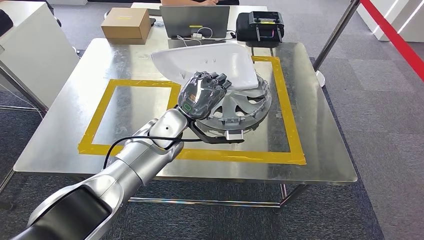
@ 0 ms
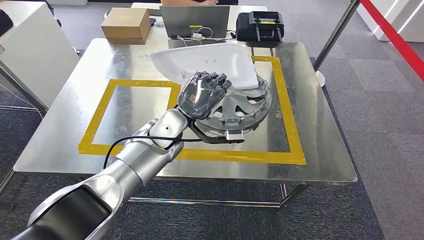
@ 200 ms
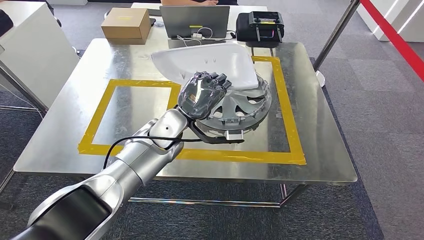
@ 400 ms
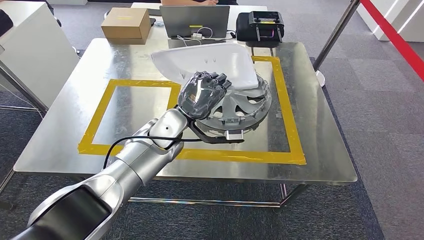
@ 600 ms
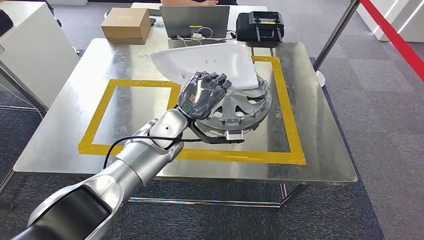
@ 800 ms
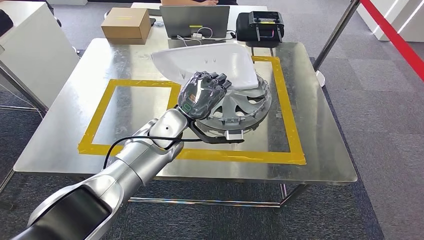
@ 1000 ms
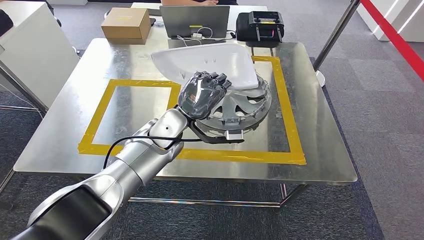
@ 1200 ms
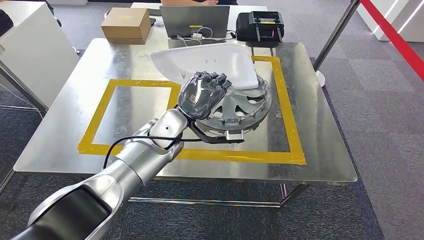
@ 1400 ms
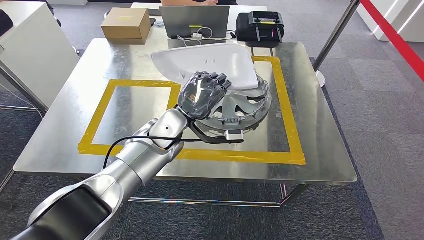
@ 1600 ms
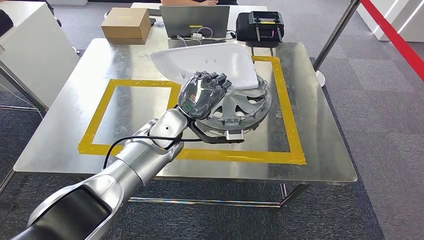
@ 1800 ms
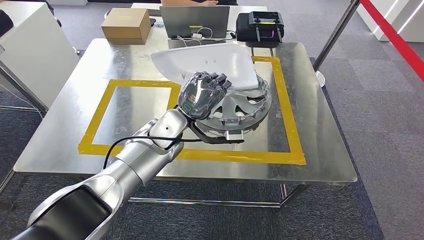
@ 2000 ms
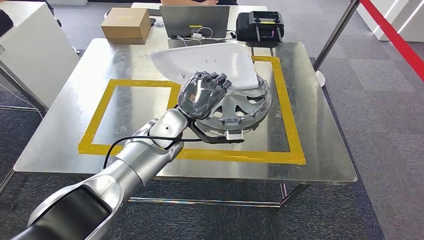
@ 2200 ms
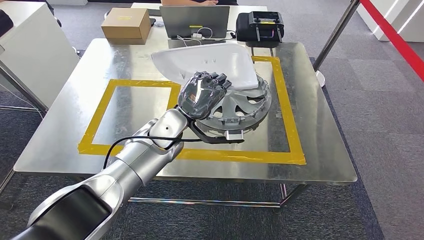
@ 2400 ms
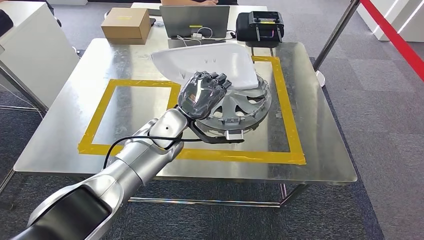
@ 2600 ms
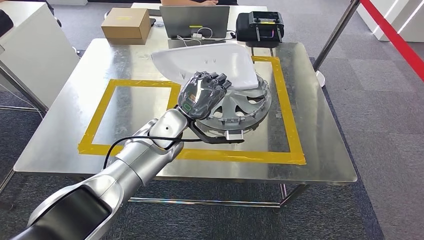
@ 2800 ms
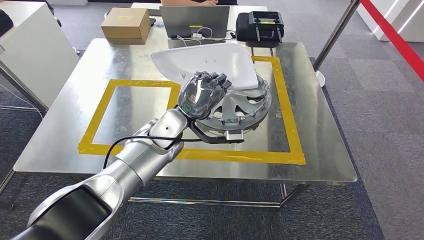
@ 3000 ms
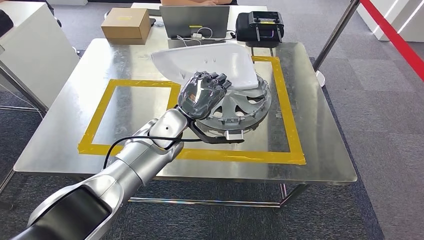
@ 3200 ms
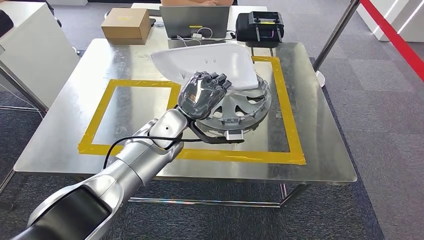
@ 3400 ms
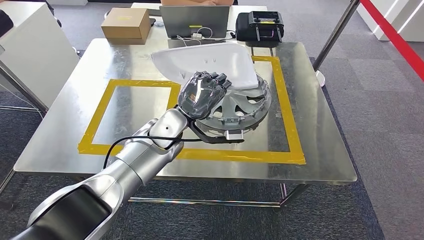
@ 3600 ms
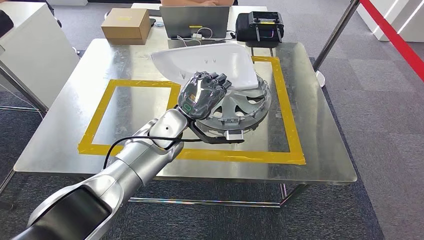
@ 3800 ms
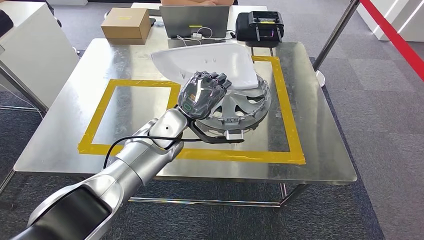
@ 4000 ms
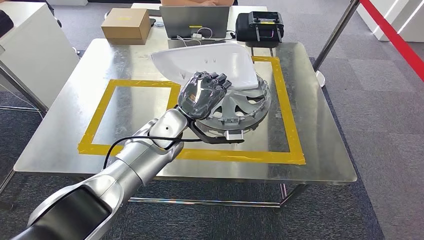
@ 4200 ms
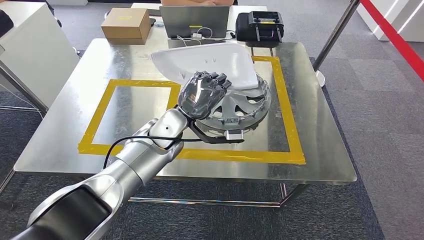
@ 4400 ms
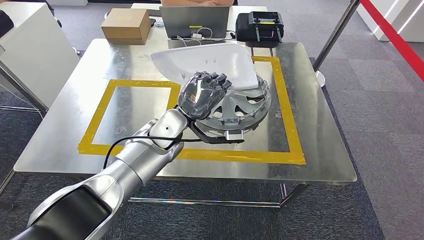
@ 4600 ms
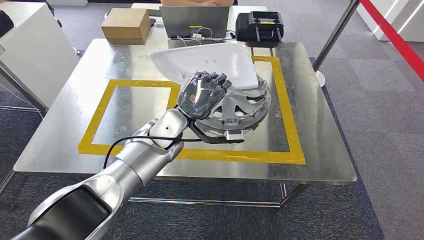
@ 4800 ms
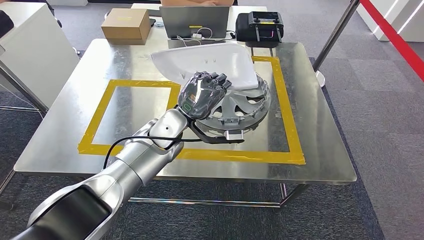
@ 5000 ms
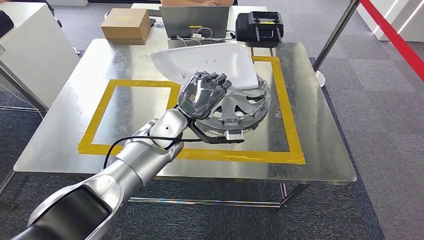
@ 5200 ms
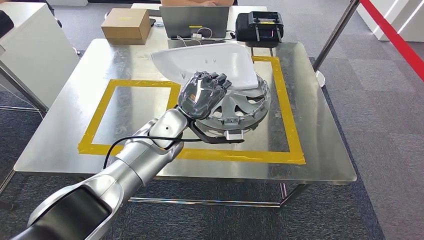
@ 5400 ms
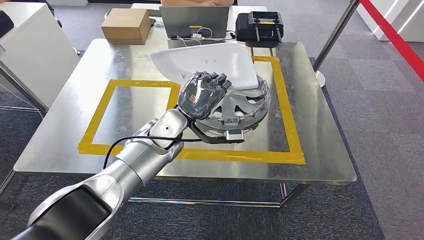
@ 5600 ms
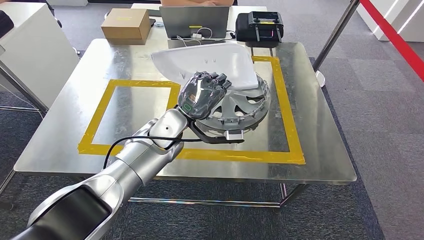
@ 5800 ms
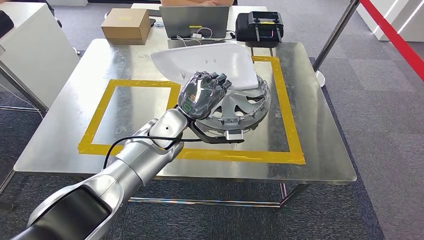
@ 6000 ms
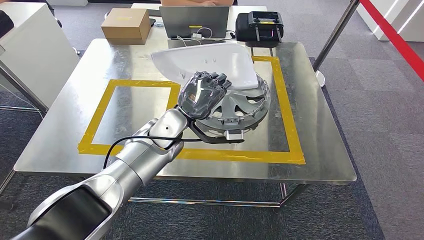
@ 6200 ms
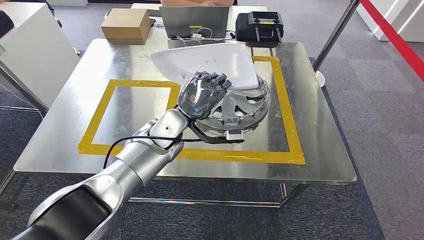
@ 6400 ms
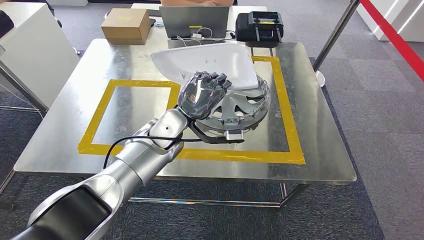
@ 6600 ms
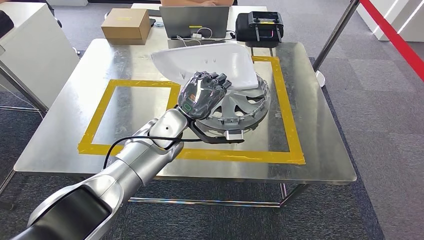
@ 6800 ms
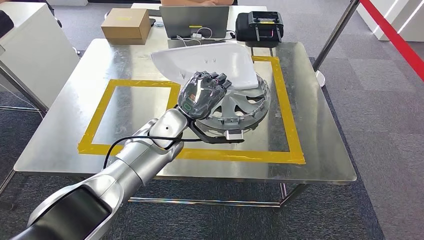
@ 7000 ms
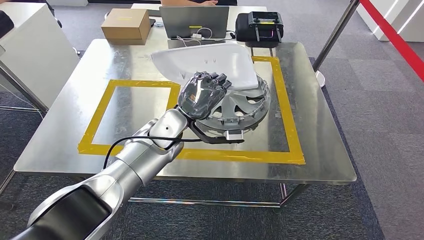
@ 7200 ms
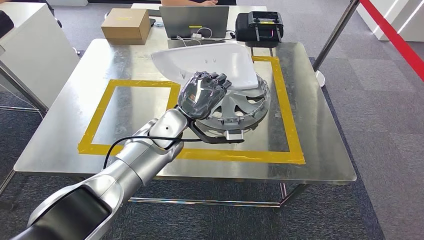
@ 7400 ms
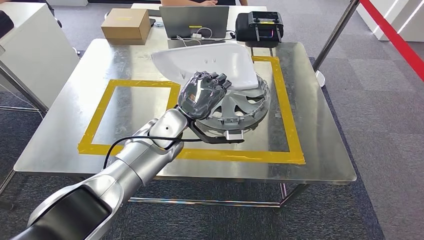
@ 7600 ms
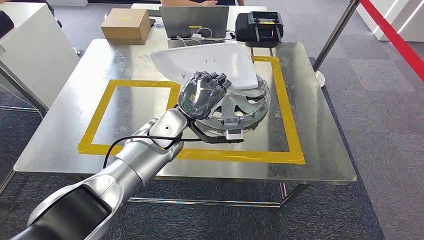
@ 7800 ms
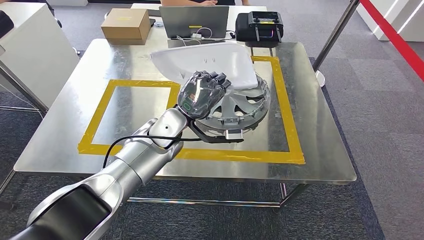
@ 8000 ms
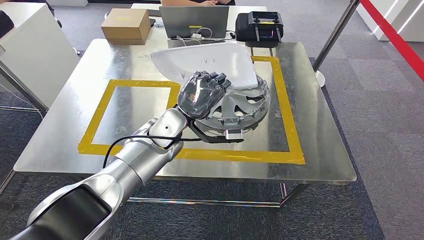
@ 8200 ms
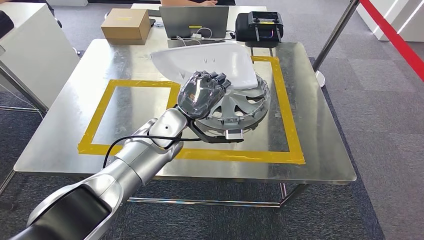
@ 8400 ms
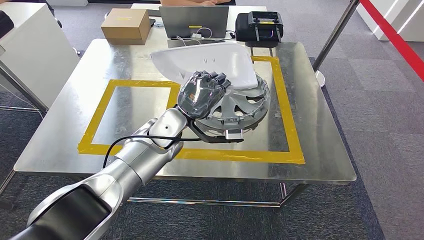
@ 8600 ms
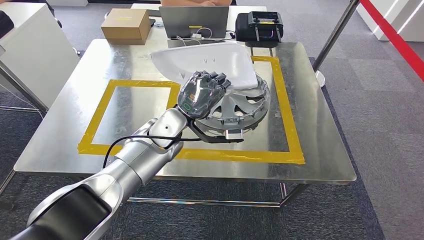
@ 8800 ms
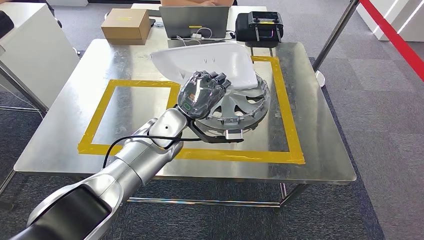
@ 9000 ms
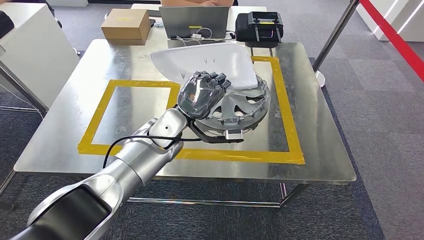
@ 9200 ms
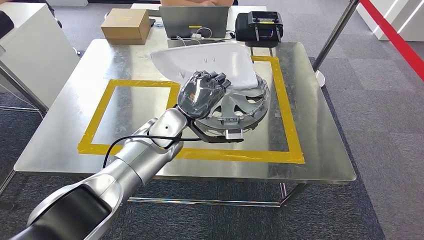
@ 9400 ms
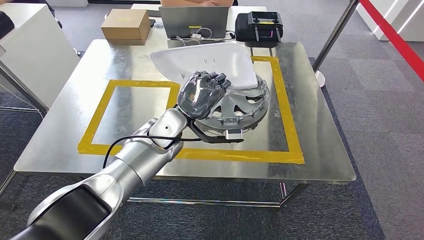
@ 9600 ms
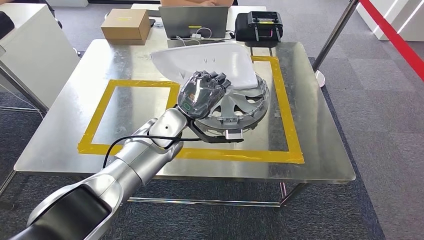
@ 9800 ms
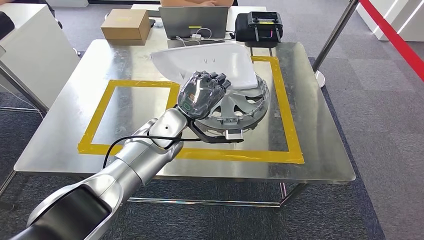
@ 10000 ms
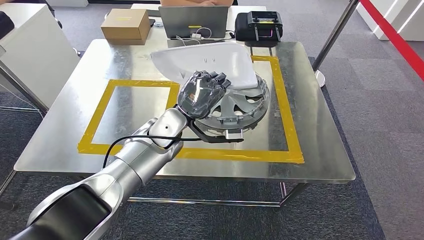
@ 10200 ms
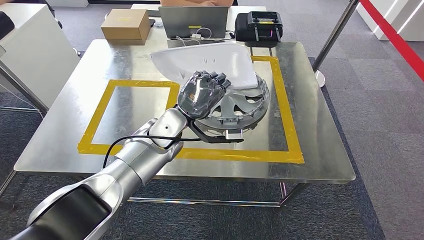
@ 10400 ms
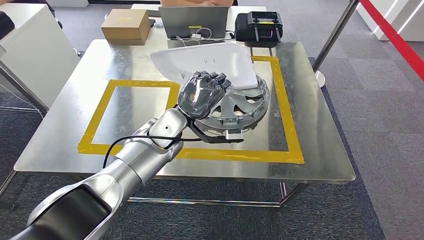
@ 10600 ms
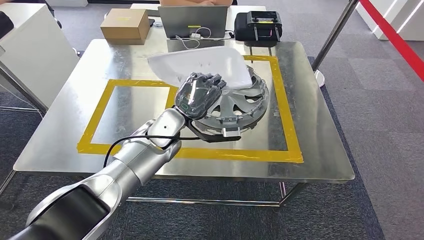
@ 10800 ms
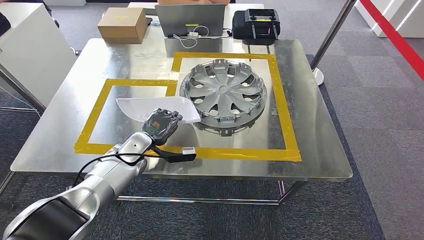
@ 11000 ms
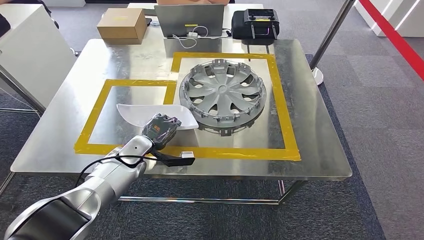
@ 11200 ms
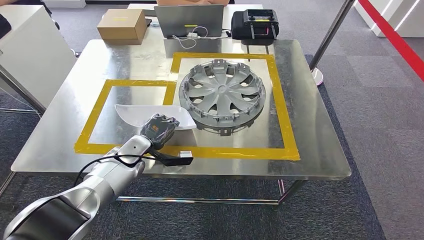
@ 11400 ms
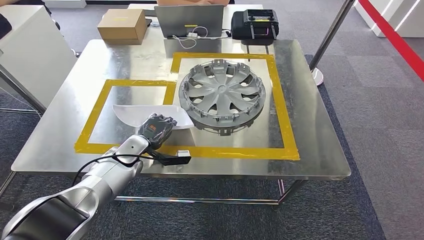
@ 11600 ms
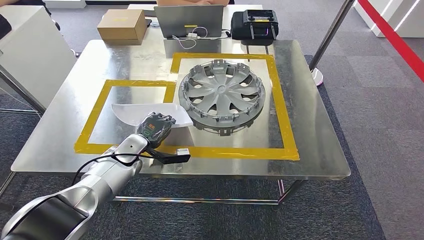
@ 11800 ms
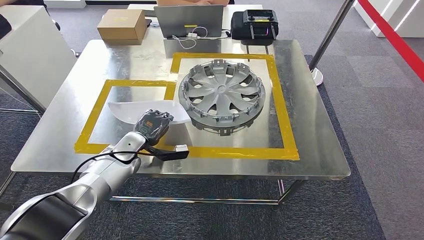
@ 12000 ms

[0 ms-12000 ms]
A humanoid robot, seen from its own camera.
0 ms to 10400 ms: Neither hand changes place.

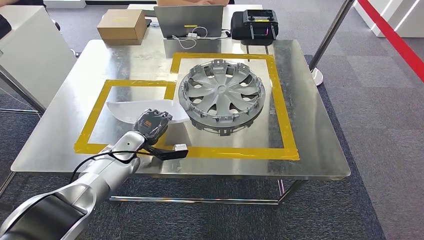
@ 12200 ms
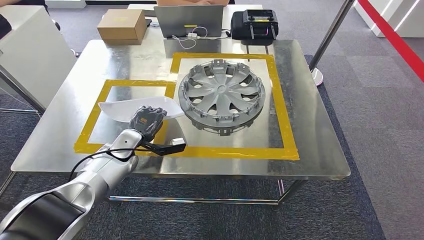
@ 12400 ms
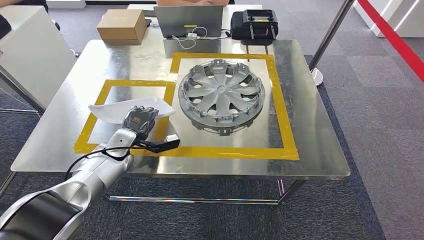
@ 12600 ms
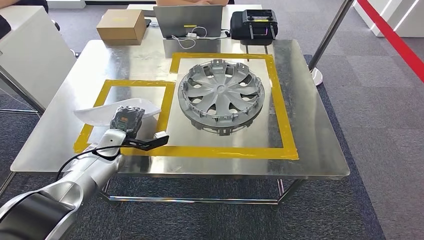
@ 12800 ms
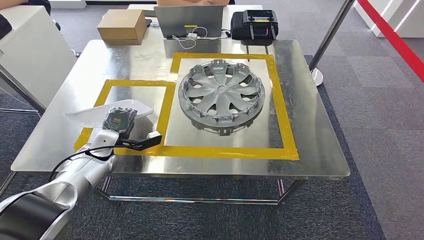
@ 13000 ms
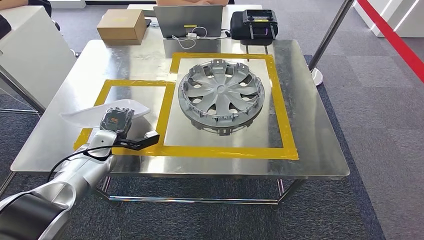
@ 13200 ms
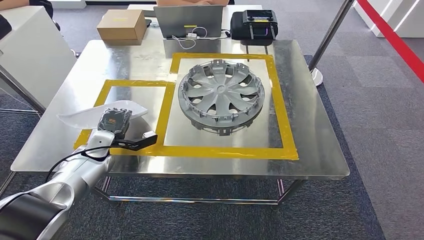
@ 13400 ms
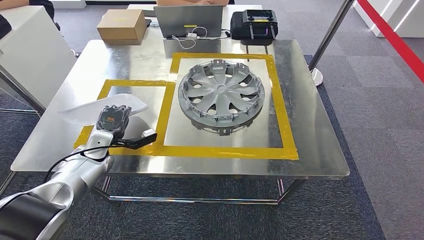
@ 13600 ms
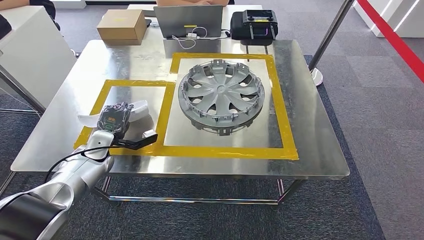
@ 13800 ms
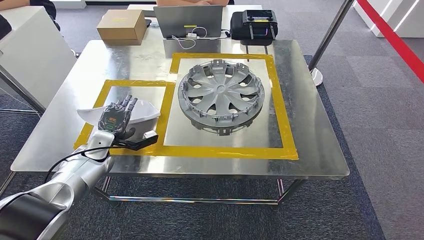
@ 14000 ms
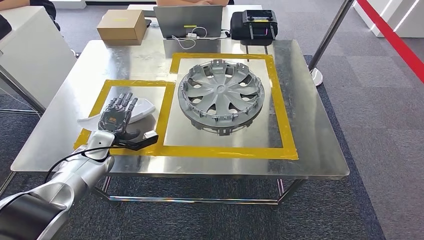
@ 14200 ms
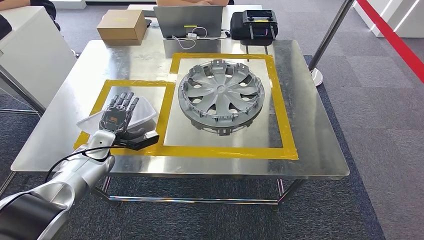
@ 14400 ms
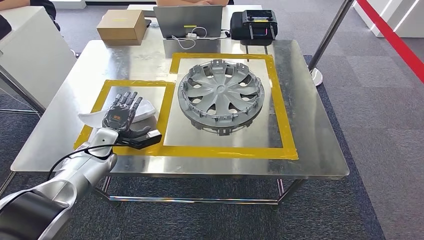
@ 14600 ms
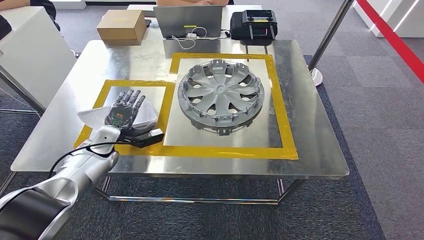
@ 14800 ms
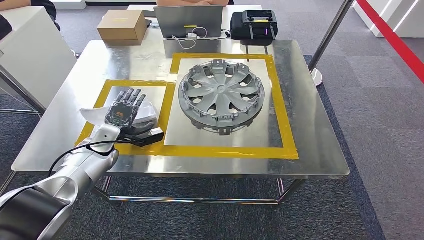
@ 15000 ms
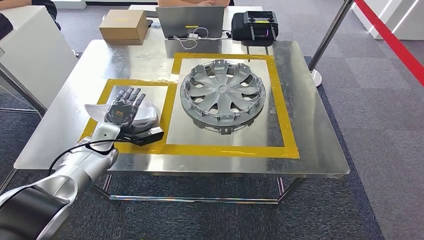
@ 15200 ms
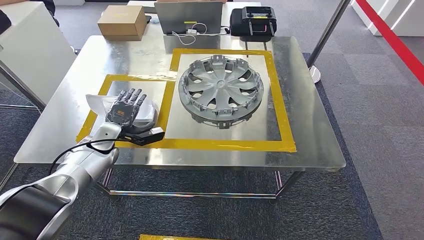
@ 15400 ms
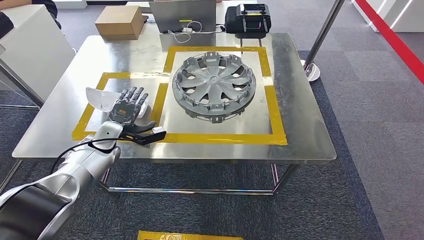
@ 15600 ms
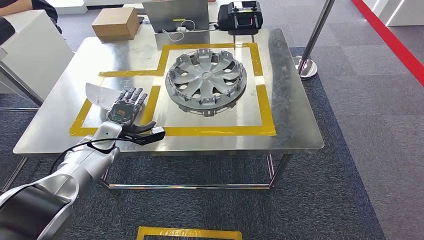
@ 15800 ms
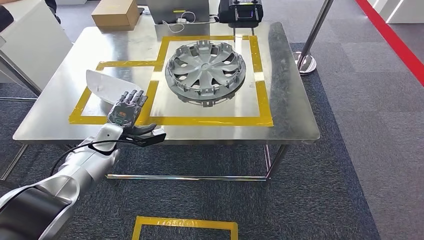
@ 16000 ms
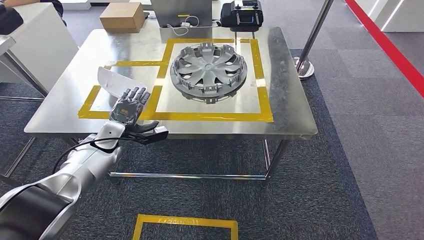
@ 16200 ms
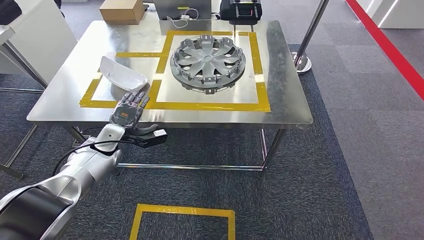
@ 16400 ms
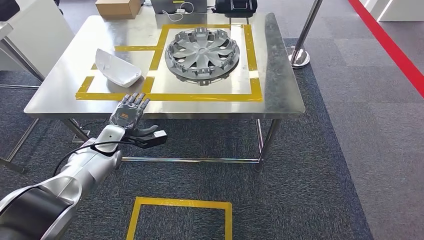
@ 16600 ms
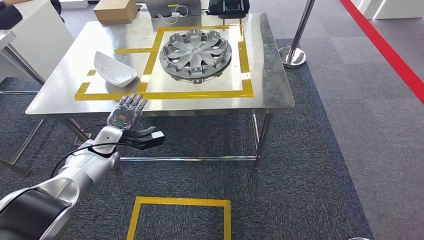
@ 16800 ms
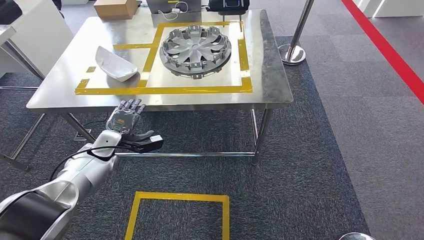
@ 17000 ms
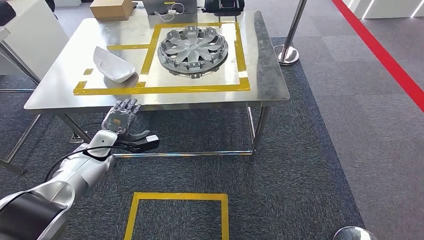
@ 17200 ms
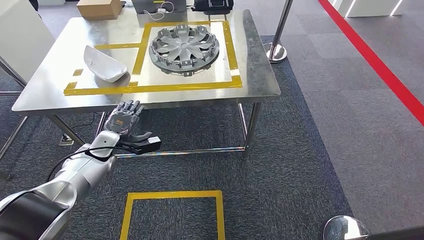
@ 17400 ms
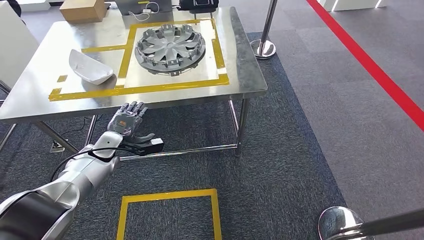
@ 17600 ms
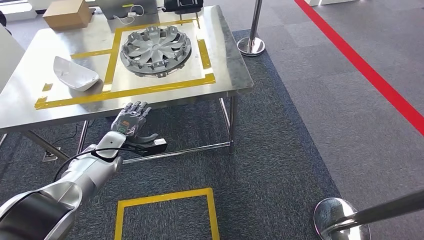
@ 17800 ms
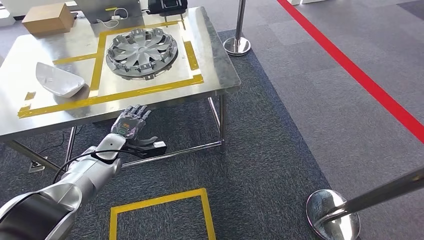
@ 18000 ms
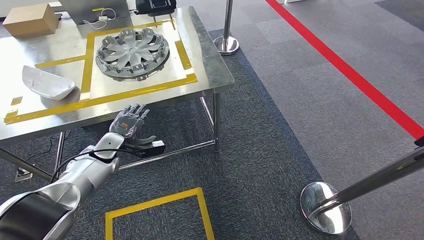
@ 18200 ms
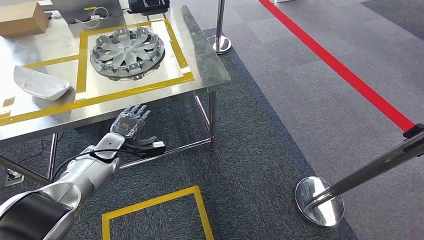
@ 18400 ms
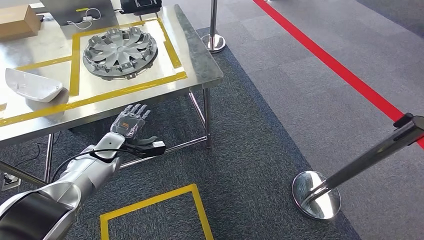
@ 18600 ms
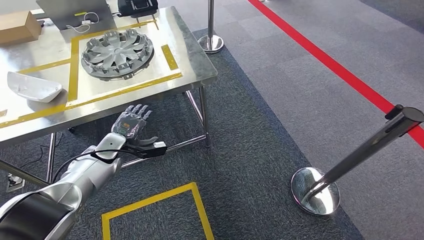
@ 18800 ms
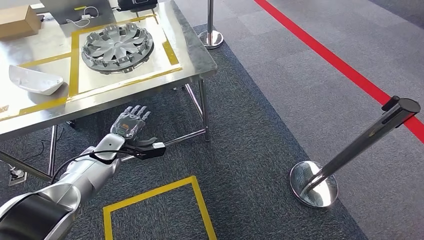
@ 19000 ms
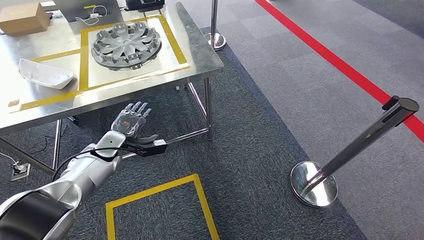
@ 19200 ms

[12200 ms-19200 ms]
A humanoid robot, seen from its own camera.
Step, 12200 ms to 15400 ms: Insert the small component into the corresponding slot on the workbench.
12200 ms to 13600 ms: The left hand goes about 10 cm to the left.
13600 ms to 15000 ms: The hands stay close to where they were, moving slightly.
